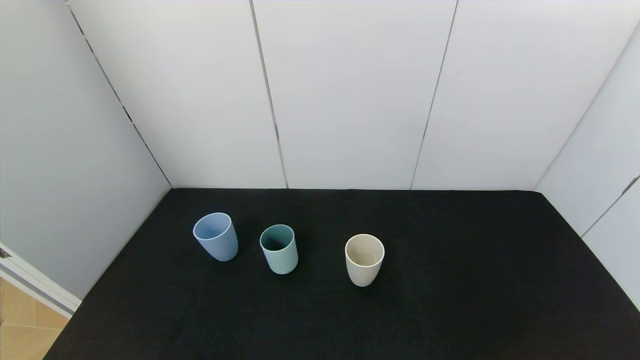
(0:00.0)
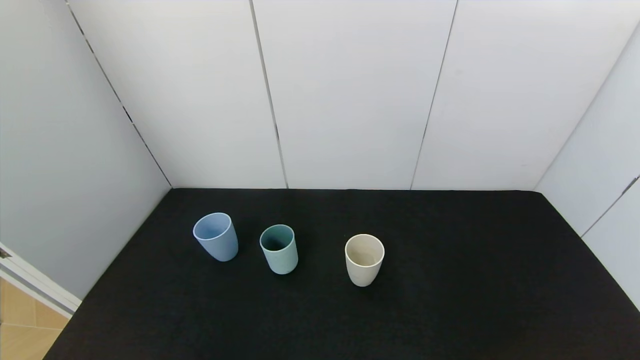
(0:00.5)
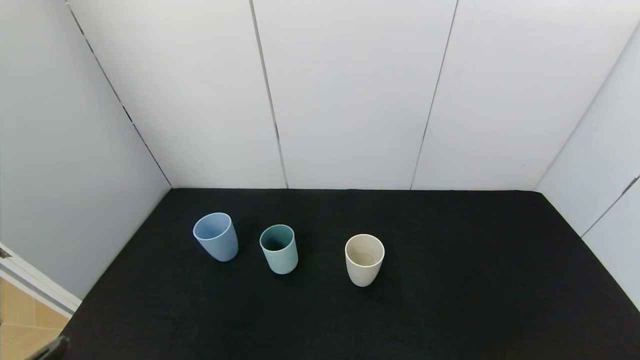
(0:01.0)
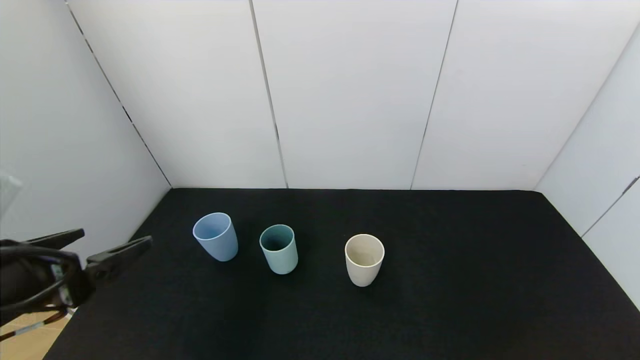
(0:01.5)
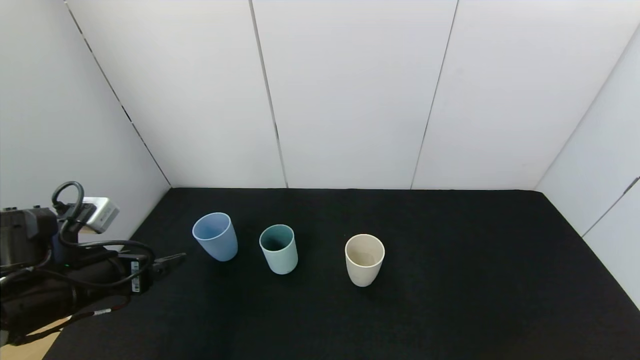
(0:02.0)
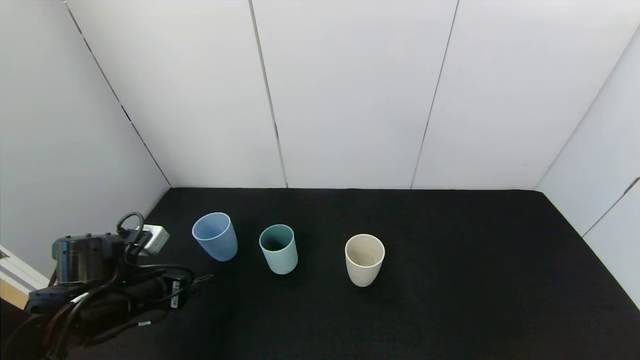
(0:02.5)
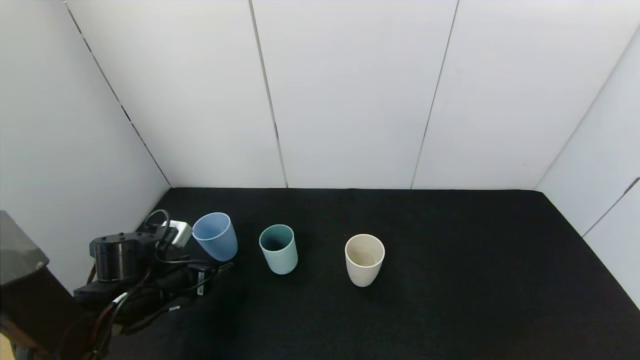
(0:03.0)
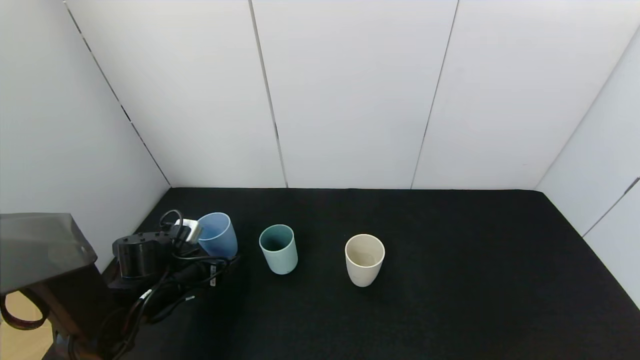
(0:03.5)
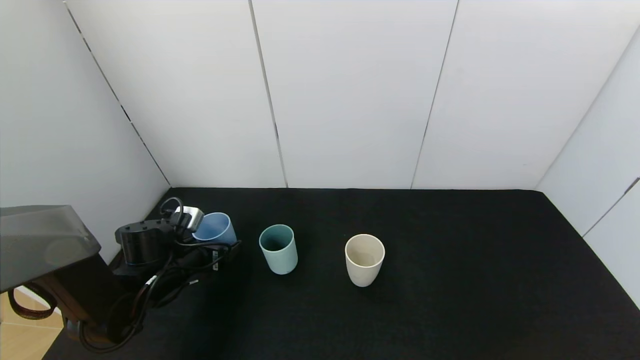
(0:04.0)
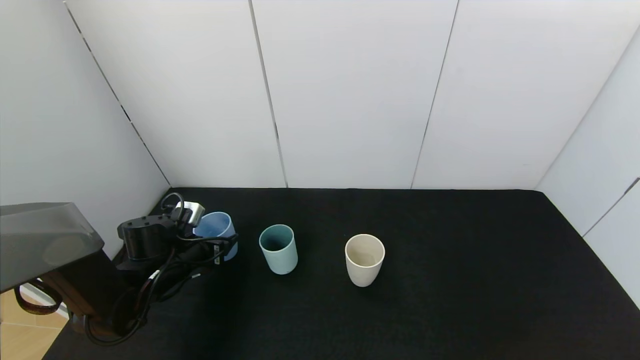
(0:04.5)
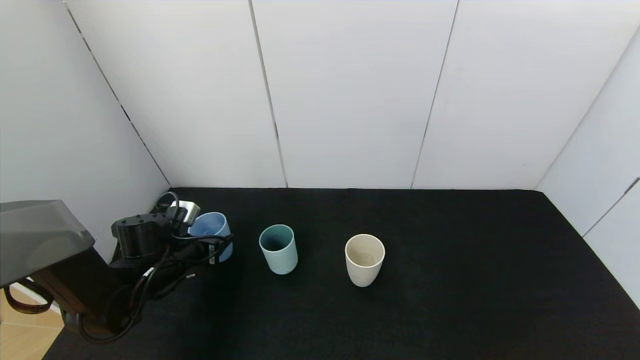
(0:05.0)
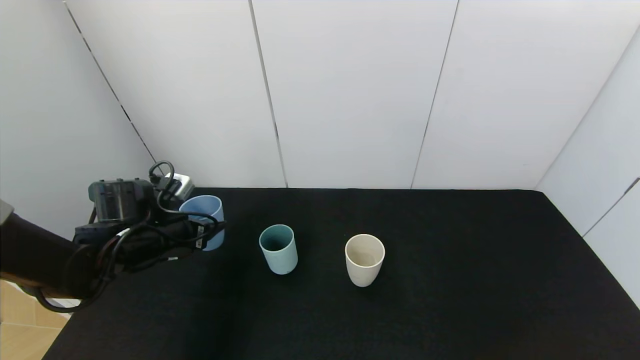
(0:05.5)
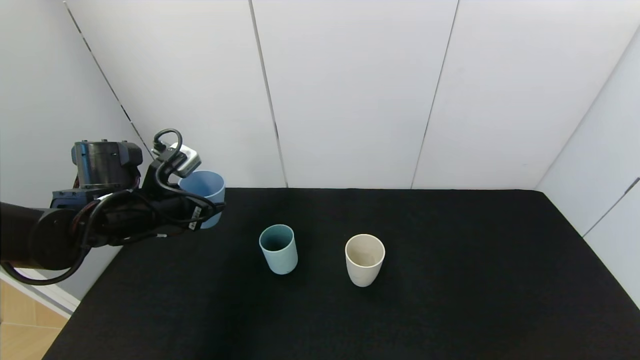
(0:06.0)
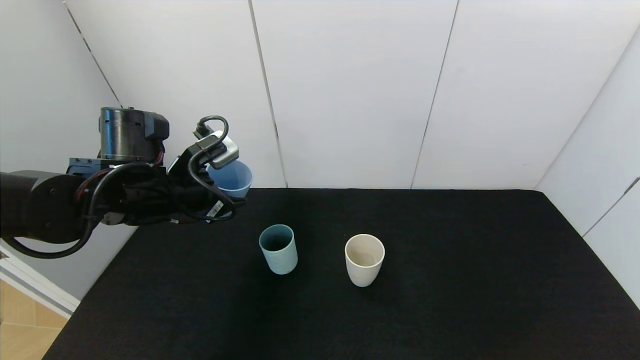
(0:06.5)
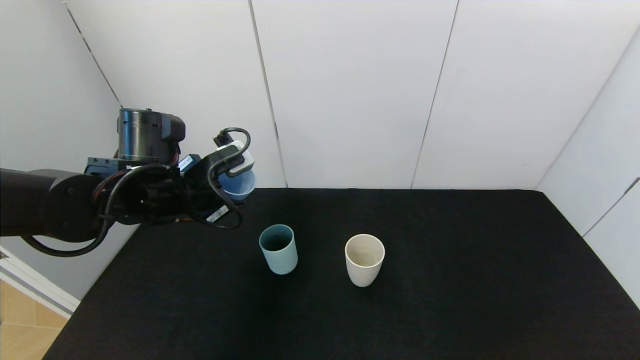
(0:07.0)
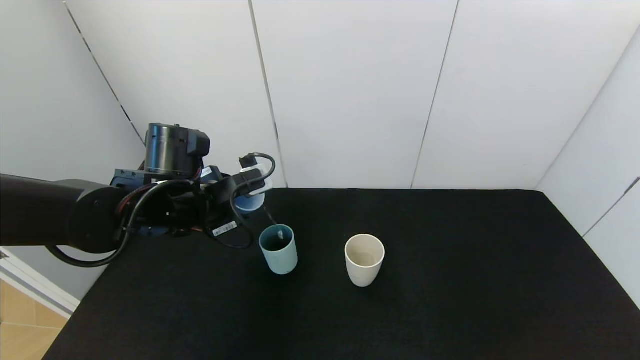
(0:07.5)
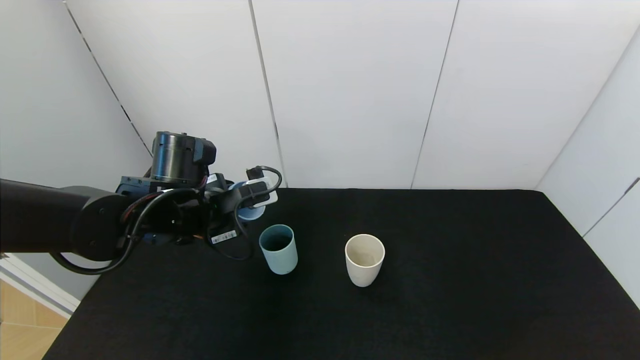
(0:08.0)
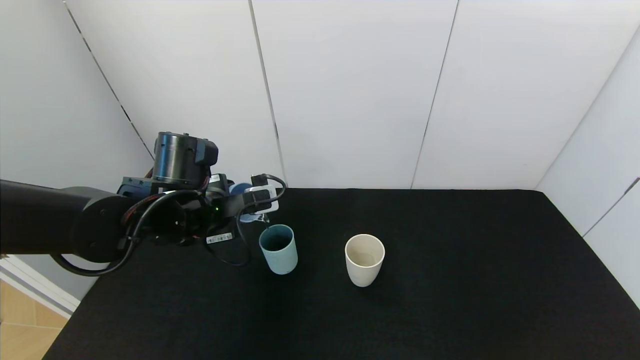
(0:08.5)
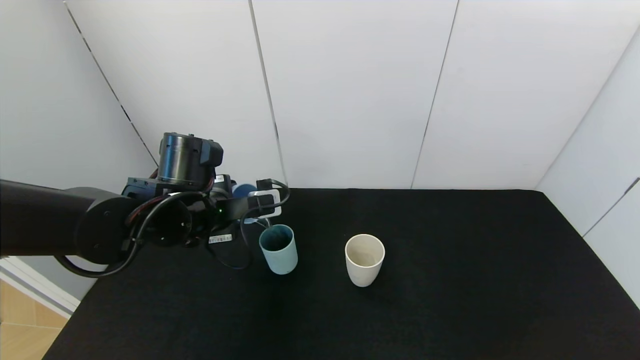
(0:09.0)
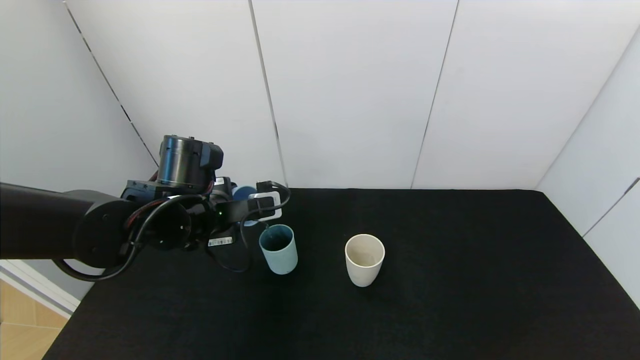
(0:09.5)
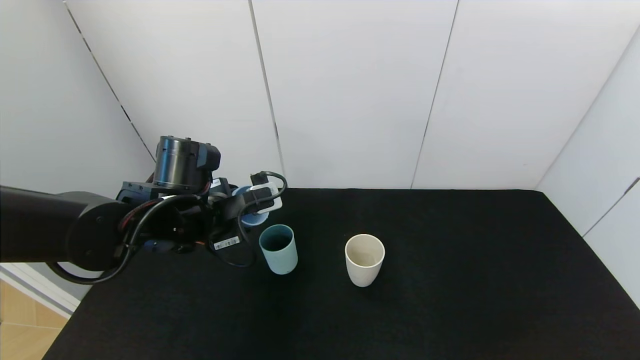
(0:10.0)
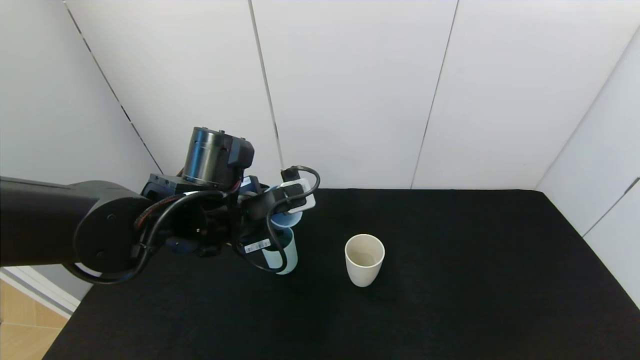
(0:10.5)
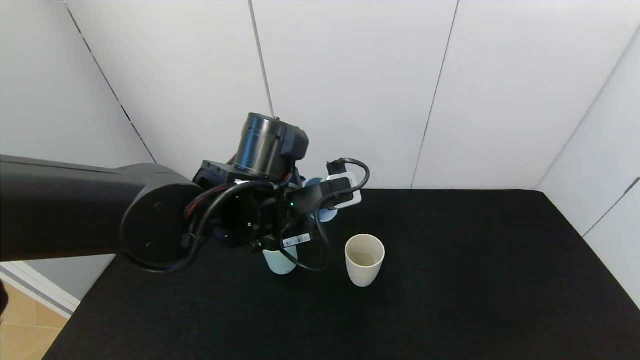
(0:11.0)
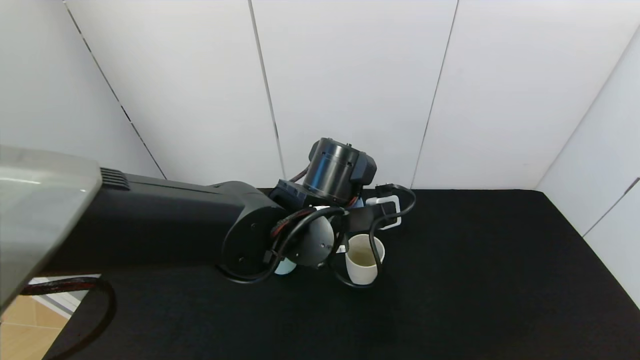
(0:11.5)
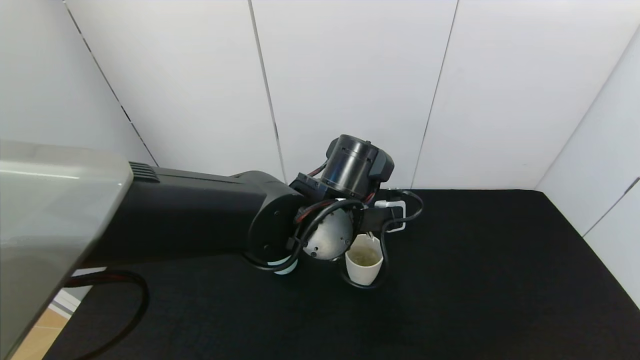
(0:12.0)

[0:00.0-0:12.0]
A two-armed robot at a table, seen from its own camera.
Task of the whole recording: use the gripper to pour the water into the other two cups on black table.
Step, 0:00.0 to 0:04.5: Grasp the blue cup with the left gripper.
Step, 0:05.0 to 0:10.0: Pour water from blue cup to green cup with the left gripper.
0:00.0 to 0:02.0: The left gripper is displaced forward by roughly 20 cm.
0:02.0 to 0:04.0: The left gripper heads forward and downward, covering about 15 cm.
0:04.0 to 0:06.0: The left gripper heads upward, covering some 15 cm, and closes.
0:06.0 to 0:08.0: The left gripper shifts about 10 cm to the right.
0:08.0 to 0:10.0: There are only small adjustments of the grippers.
0:10.0 to 0:12.0: The left gripper heads to the right, covering about 20 cm.

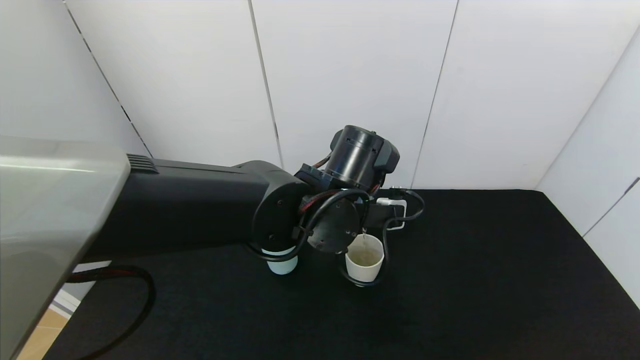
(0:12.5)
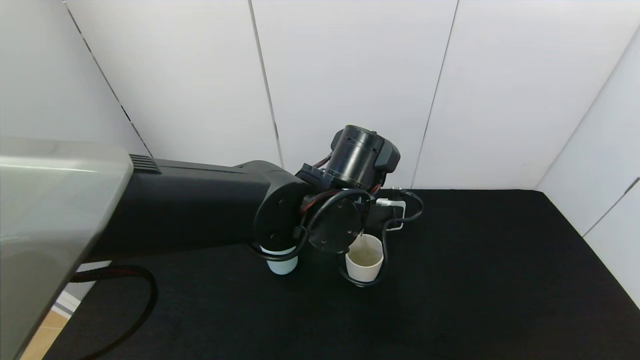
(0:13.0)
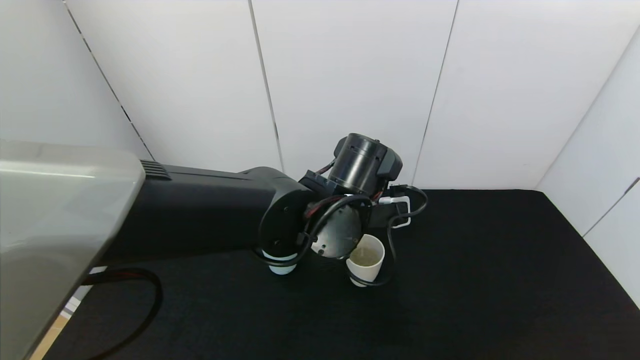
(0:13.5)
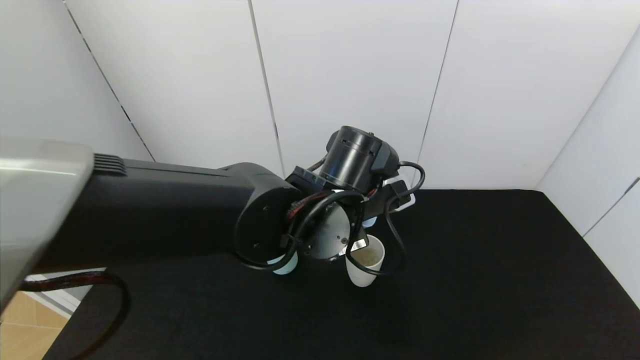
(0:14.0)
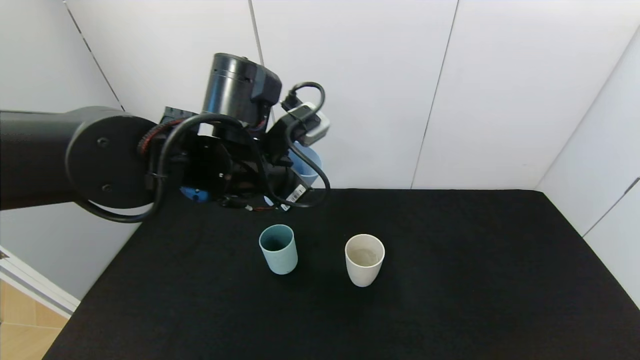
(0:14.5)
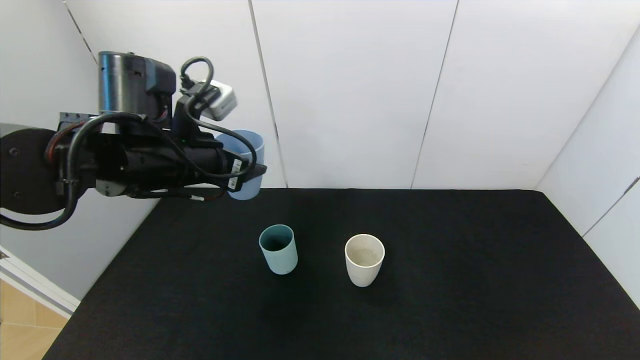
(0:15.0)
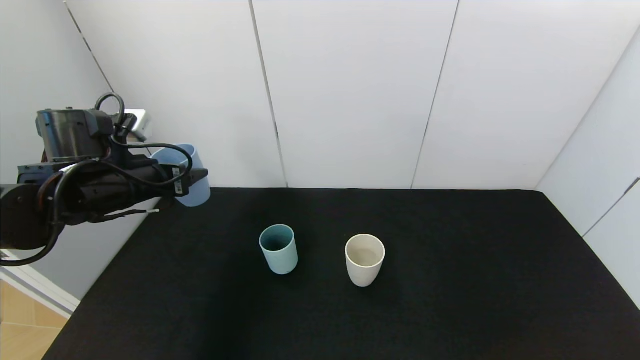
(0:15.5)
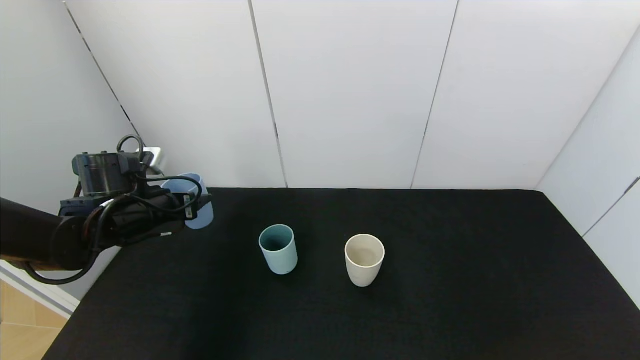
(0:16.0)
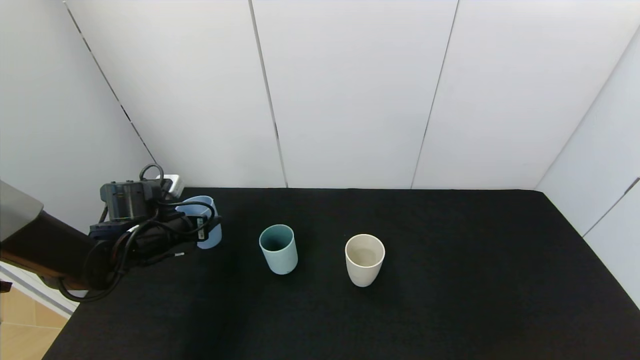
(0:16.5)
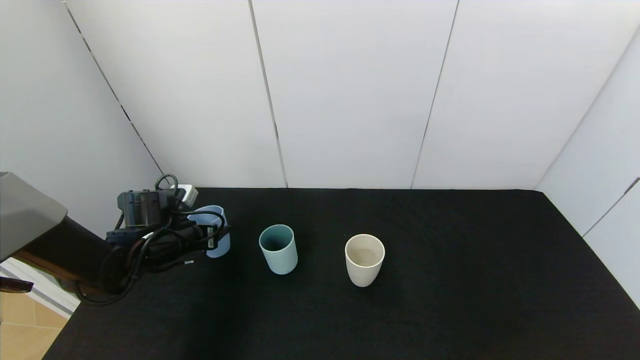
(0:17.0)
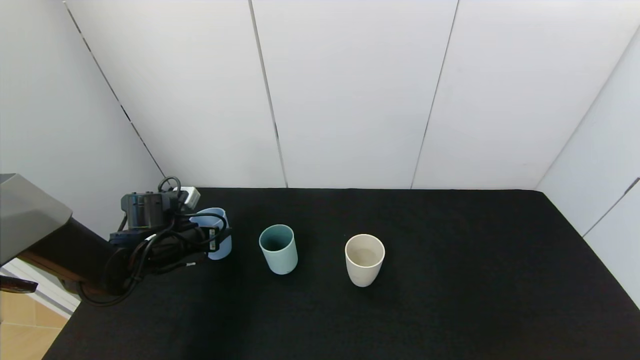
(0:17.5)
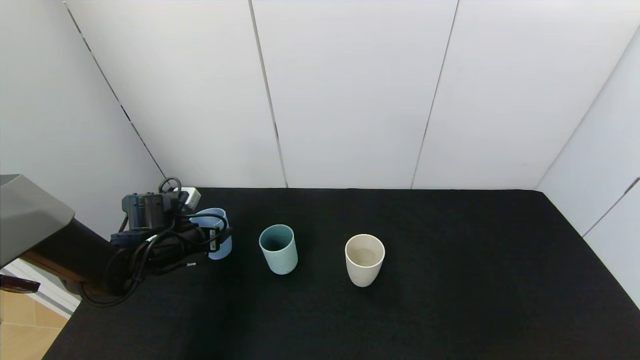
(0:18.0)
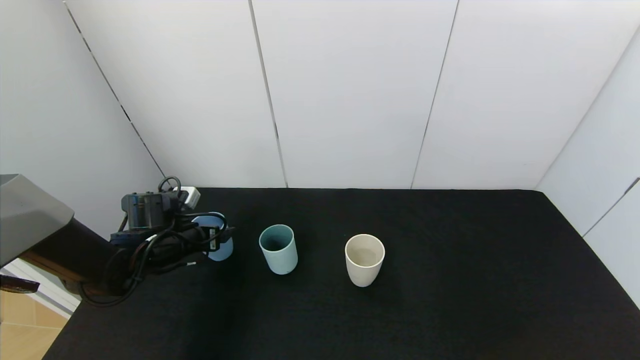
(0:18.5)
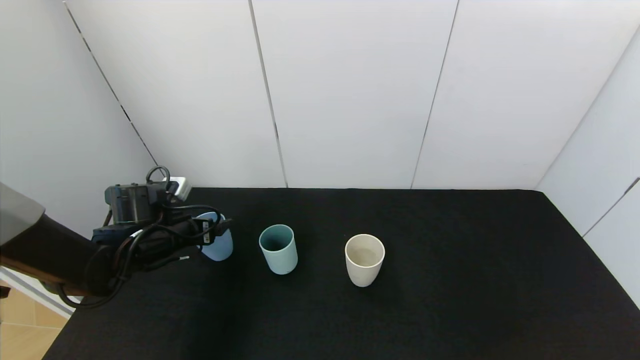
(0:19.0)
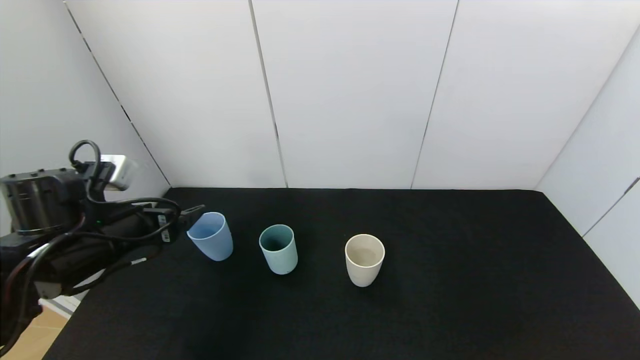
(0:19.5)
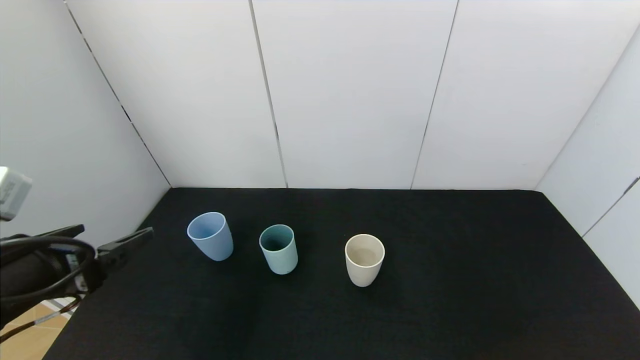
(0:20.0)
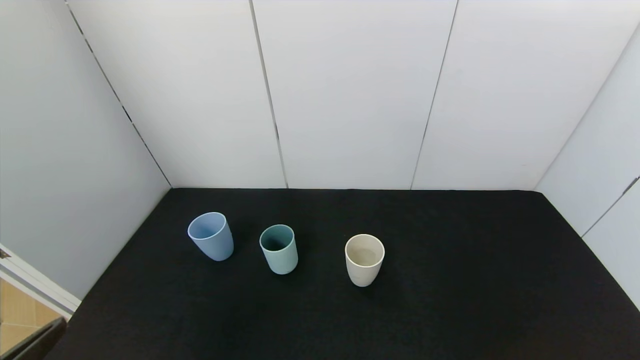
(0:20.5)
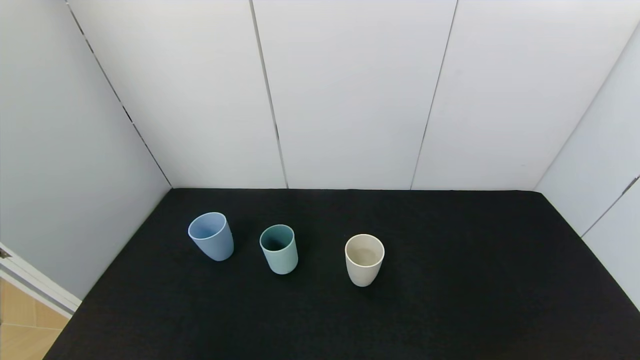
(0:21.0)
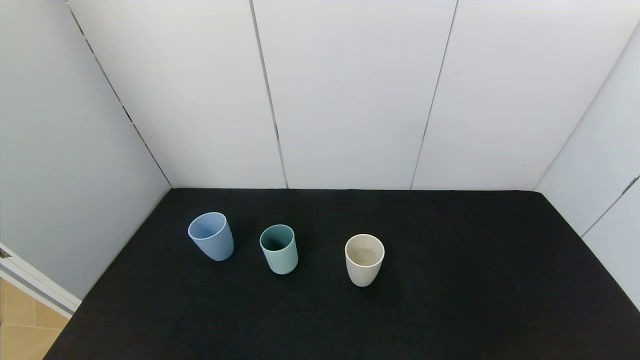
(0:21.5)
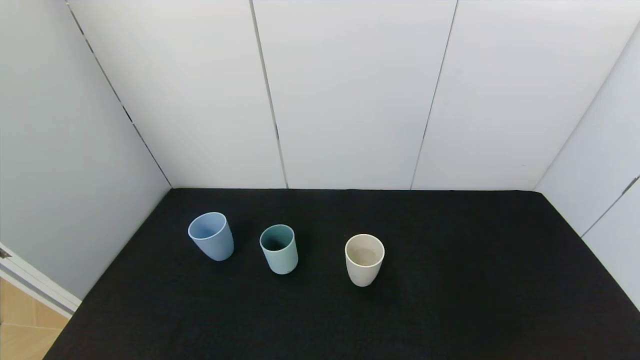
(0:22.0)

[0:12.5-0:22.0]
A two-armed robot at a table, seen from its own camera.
Task of the whole recording: use the gripper to pour the water into the other two cups on black table.
Step, 0:14.0 to 0:19.0: Place the blue cup with the left gripper.
0:12.5 to 0:14.5: The left gripper heads to the left and upward, covering roughly 10 cm.
0:14.5 to 0:16.5: The left gripper shifts some 25 cm to the left and downward.
0:16.5 to 0:18.0: The grippers make only small movements.
0:18.0 to 0:20.0: The left gripper goes roughly 25 cm backward and upward, and opens its fingers.
0:20.0 to 0:22.0: The left gripper moves backward and downward, about 20 cm.
